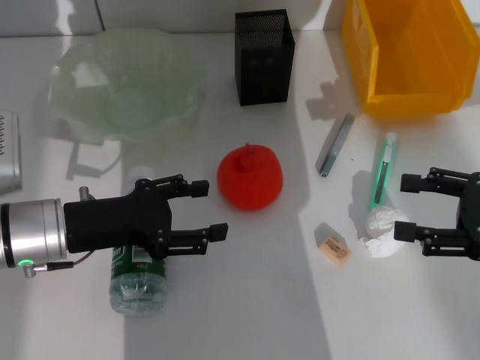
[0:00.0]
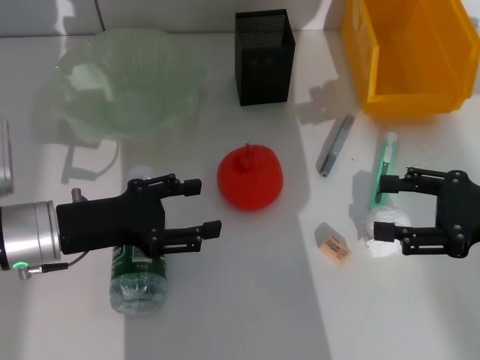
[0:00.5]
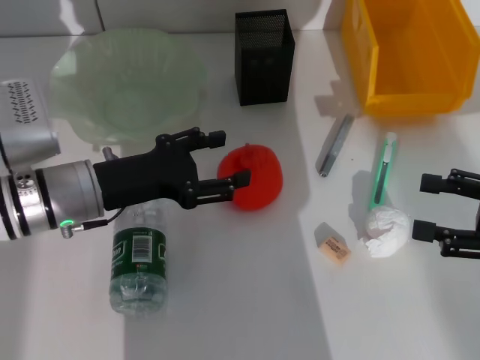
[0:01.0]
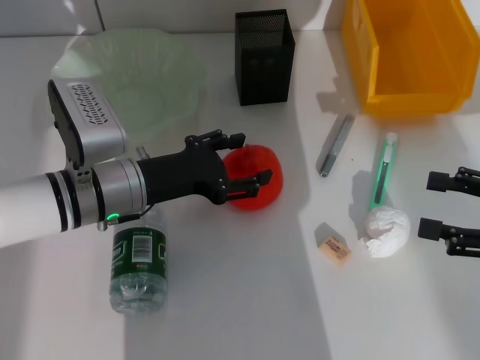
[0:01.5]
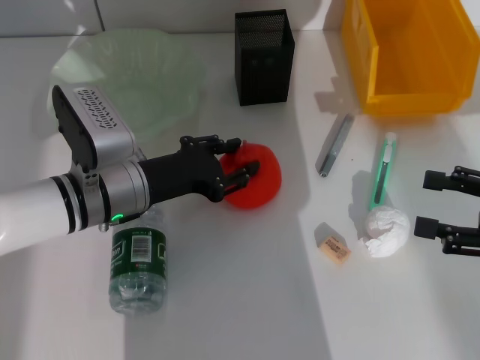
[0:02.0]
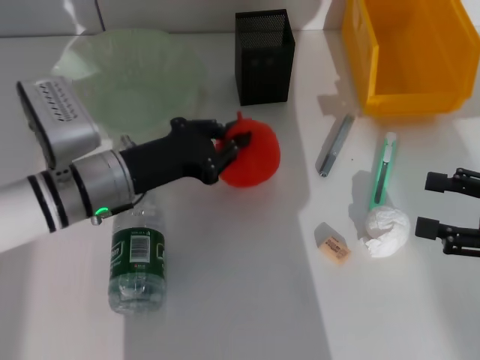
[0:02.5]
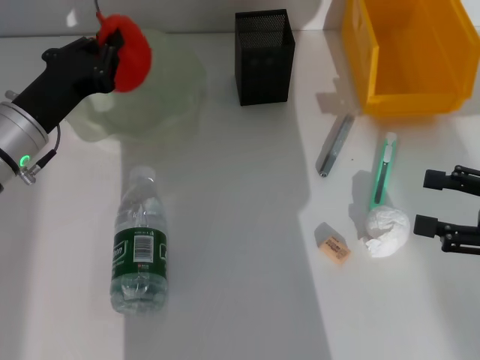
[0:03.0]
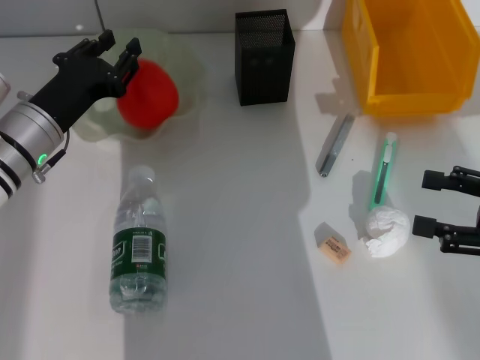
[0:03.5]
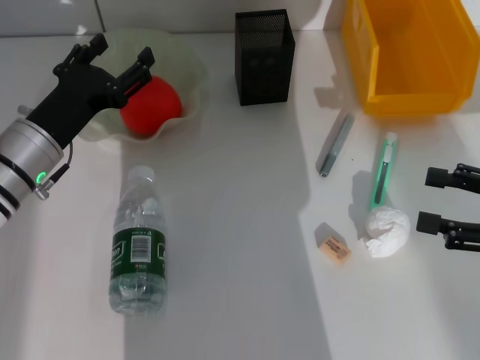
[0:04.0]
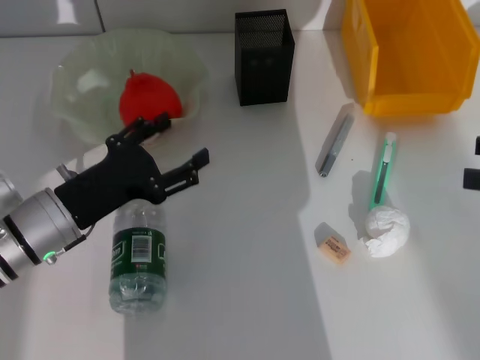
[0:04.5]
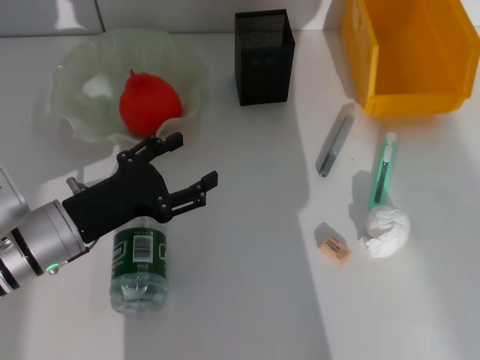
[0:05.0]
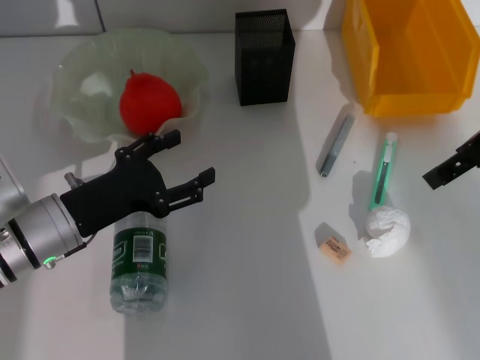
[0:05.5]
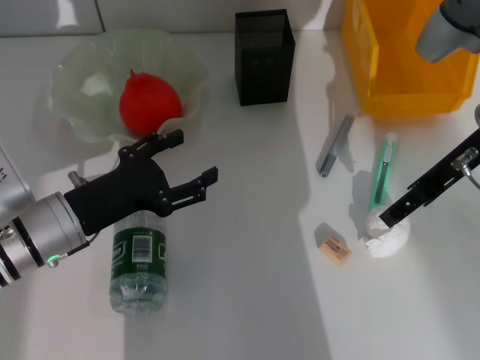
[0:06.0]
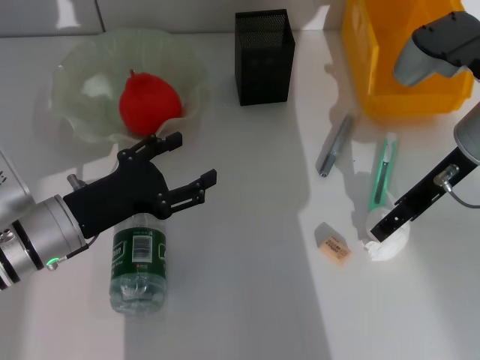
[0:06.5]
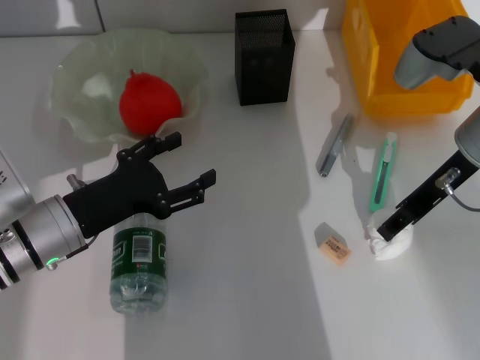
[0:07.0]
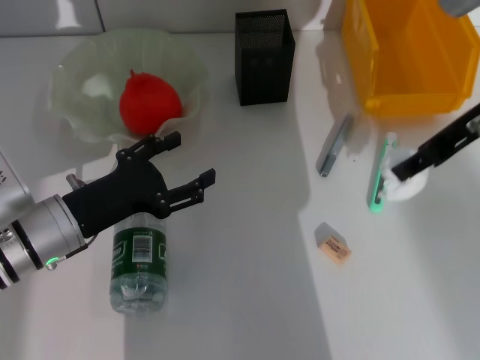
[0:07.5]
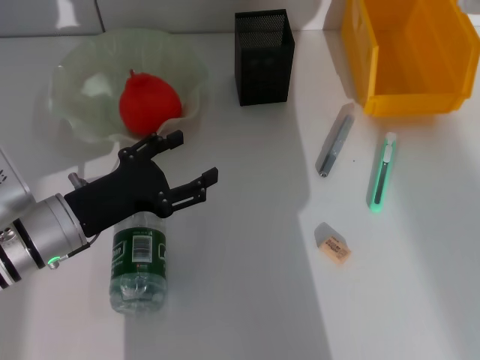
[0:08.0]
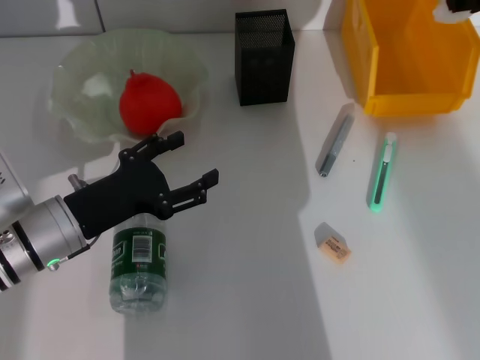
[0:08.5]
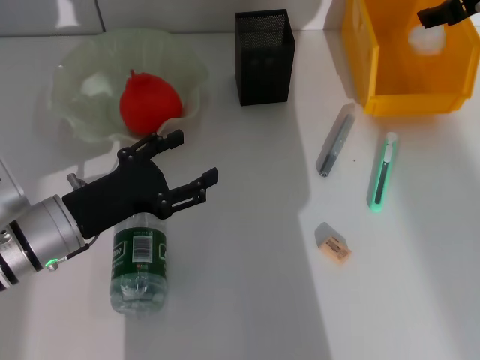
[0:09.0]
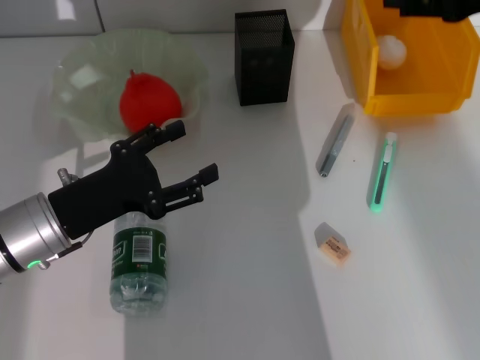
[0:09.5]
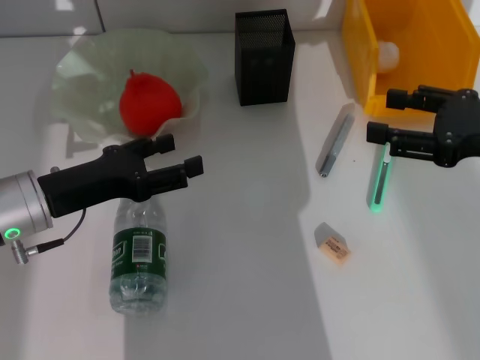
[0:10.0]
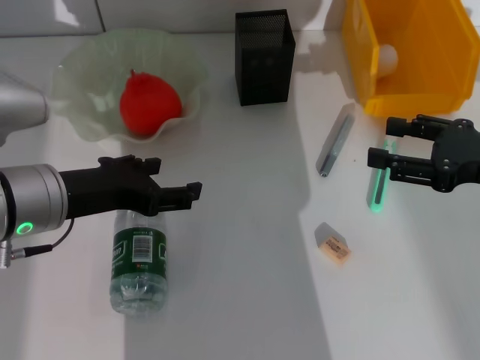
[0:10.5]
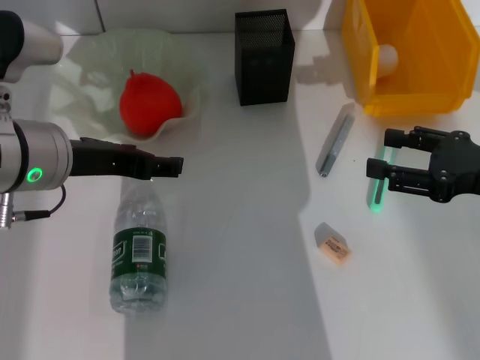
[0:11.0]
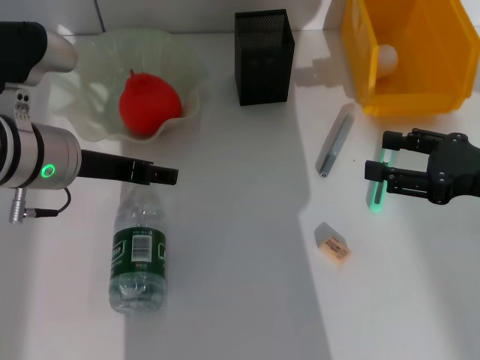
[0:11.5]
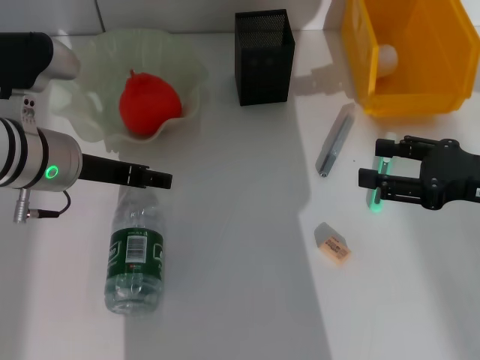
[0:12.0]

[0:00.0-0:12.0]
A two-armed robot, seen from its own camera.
Step, 0:00.0 to 0:02.0: Grab the orange with the left hand.
Step, 0:02.5 to 0:03.5: Place the orange into the fruit bowl with the left hand.
Step, 0:04.0 to 0:06.5: Grab the paper ball with the right hand.
Step, 0:07.0 to 0:09.0: Place the paper ball into the trash can with the right hand.
0:00.0 to 0:02.0: The left gripper is displaced to the right and forward by about 10 cm.
0:02.0 to 0:04.0: The left gripper is displaced to the left by about 5 cm, and closes, then opens again.
0:04.0 to 0:06.0: The right gripper moves forward, to the left and upward, some 20 cm. Meanwhile the left gripper is displaced backward by approximately 5 cm, and opens its fingers.
0:06.0 to 0:08.0: The right gripper goes approximately 15 cm upward and to the right, and closes.
0:08.0 to 0:10.0: The right gripper is displaced downward and backward by roughly 20 cm.
0:10.0 to 0:12.0: The left gripper shifts approximately 5 cm upward.

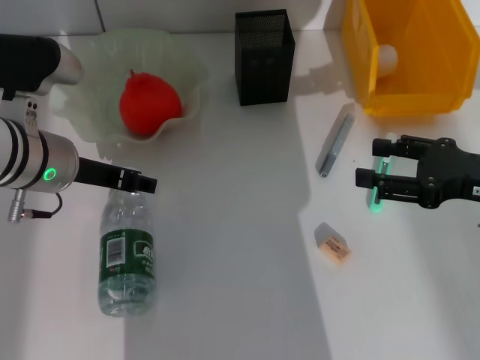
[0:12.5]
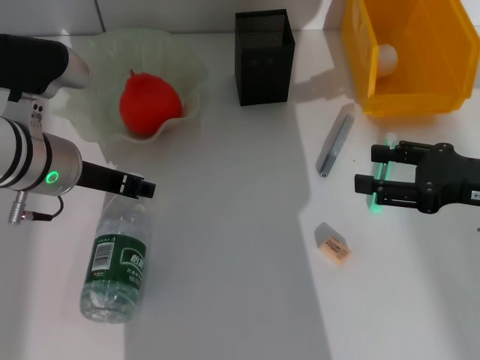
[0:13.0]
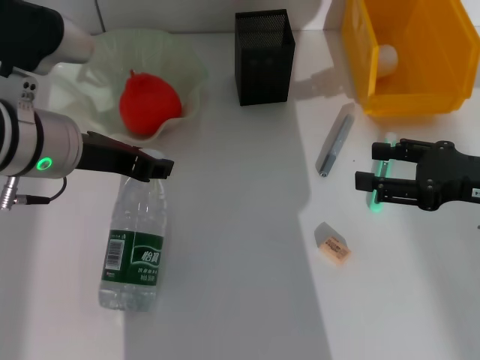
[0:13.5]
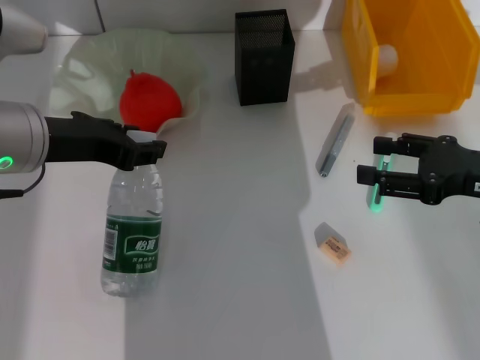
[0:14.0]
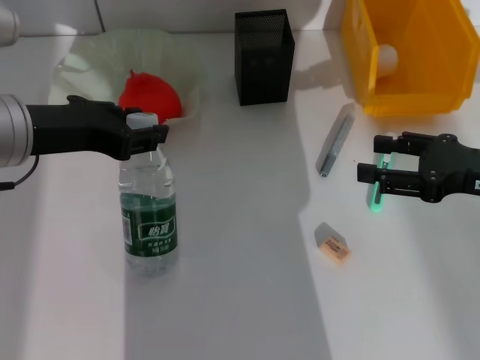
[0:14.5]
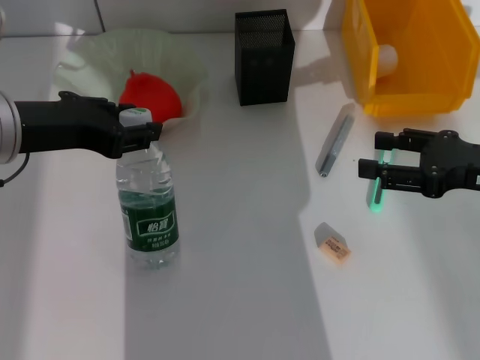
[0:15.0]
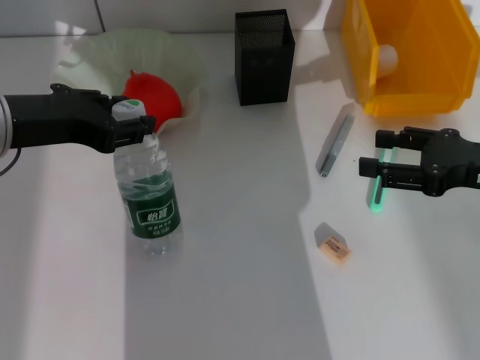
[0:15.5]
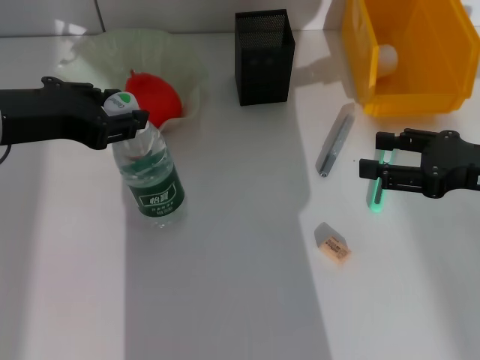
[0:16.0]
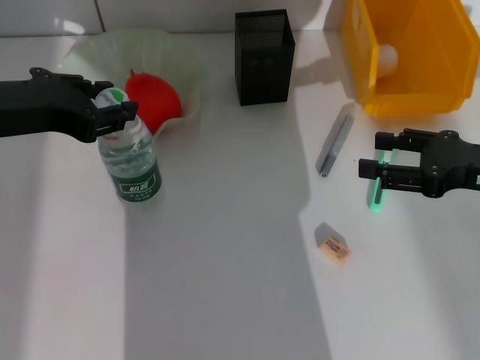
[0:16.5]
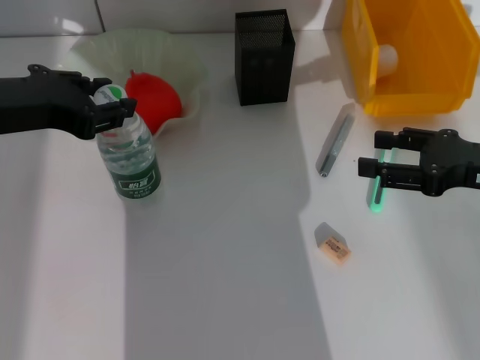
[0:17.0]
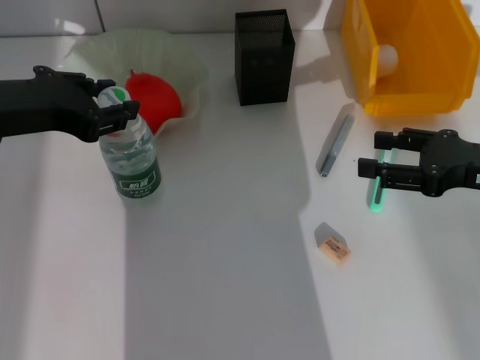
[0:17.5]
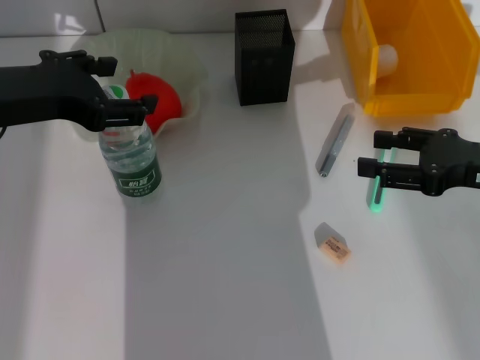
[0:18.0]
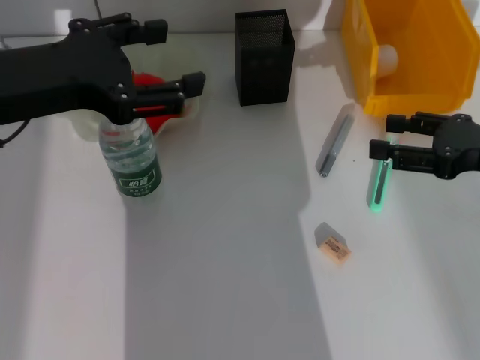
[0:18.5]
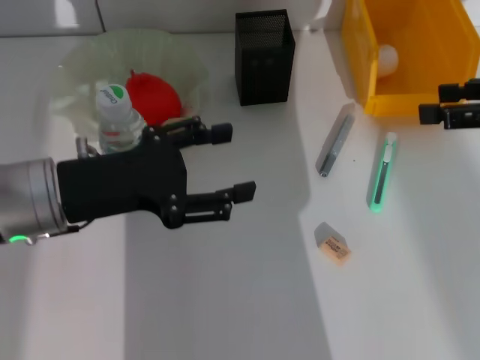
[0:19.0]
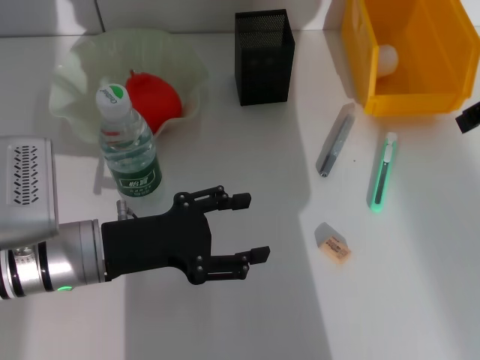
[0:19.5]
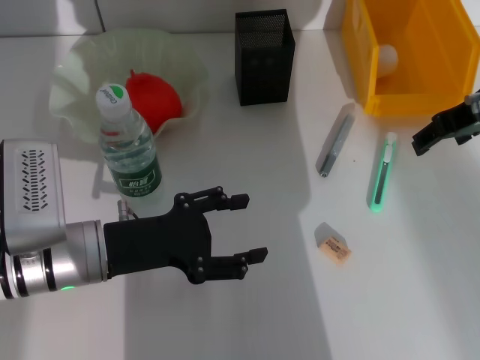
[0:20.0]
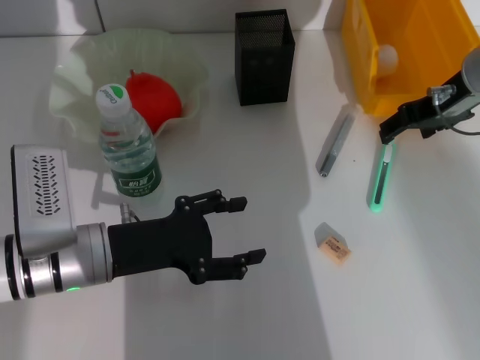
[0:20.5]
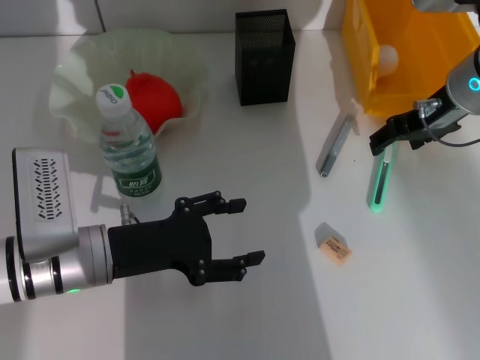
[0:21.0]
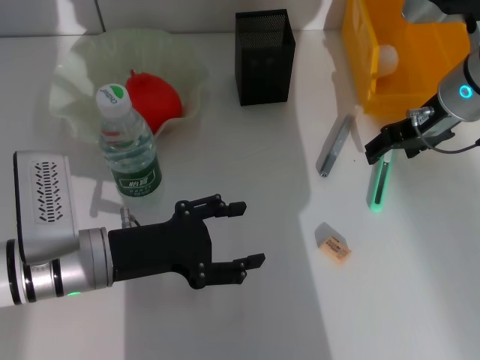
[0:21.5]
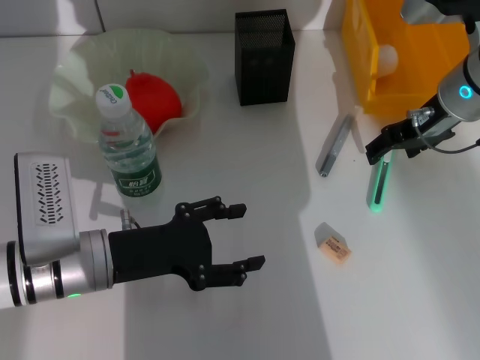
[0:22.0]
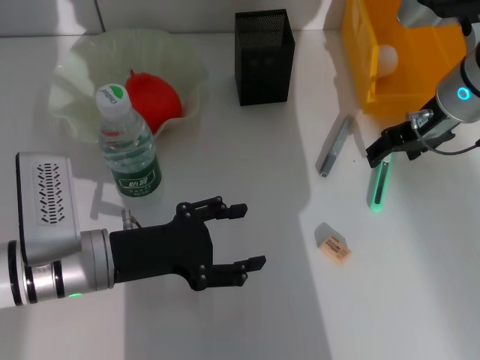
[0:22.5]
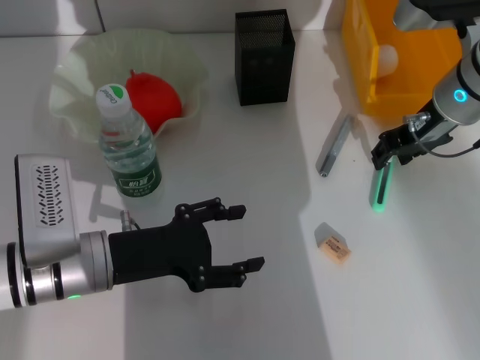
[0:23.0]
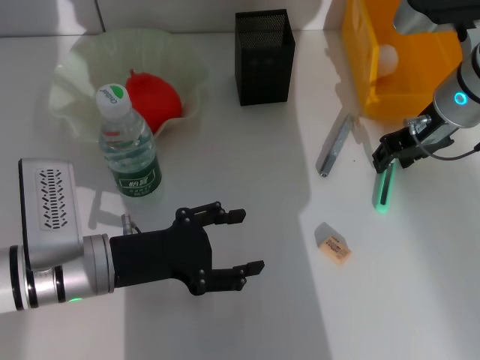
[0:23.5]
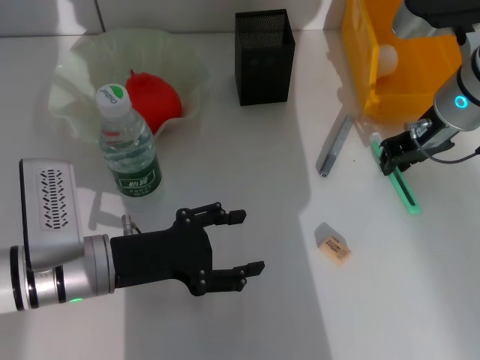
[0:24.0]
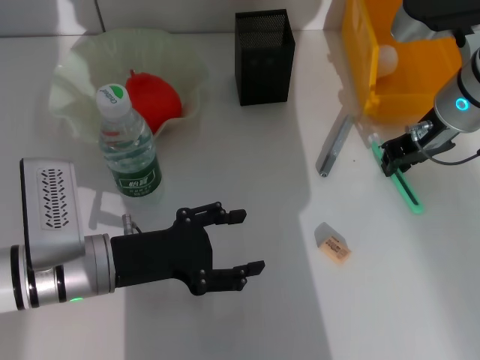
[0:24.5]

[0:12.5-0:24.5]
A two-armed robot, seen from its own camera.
Step, 0:13.5 to 0:18.0: Place the water bottle on the table with the left hand.
Step, 0:18.5 to 0:24.0: Grab the blue utility knife with the right hand.
0:12.5 to 0:14.5: The left gripper is displaced upward by some 5 cm, and closes its fingers.
0:14.5 to 0:16.5: The grippers move only a little.
0:16.5 to 0:18.5: The left gripper opens up.
0:18.5 to 0:20.5: The left gripper goes about 20 cm downward. The right gripper goes about 15 cm forward and to the left.
0:20.5 to 0:22.5: The grippers stay close to where they were, moving slightly.
0:22.5 to 0:24.5: The right gripper closes.

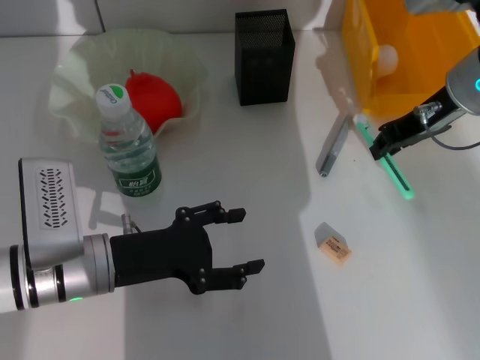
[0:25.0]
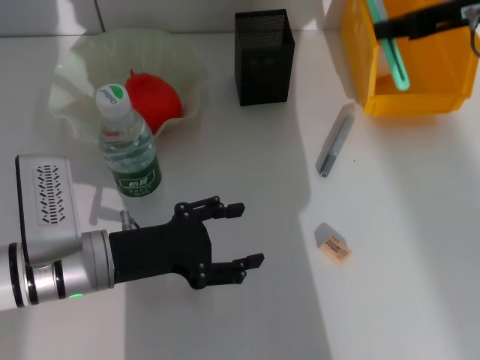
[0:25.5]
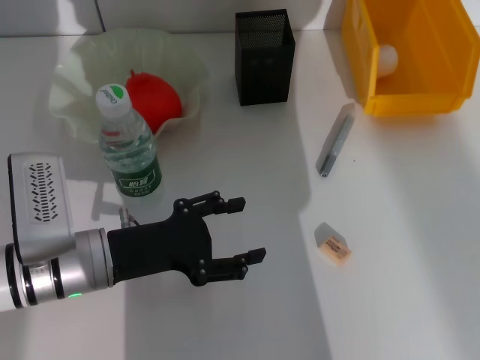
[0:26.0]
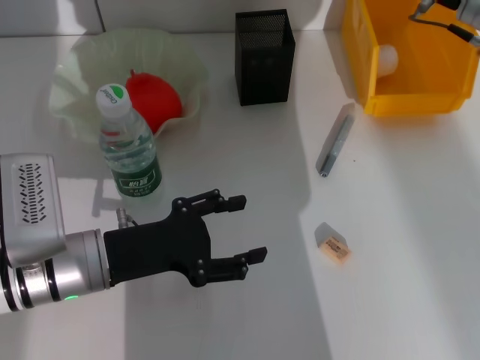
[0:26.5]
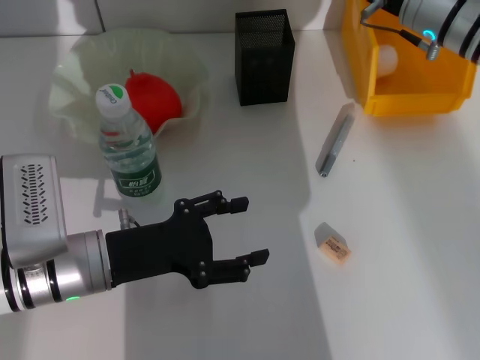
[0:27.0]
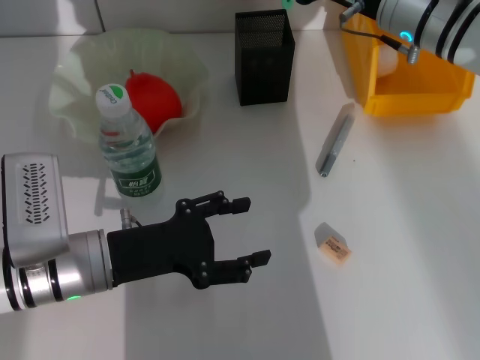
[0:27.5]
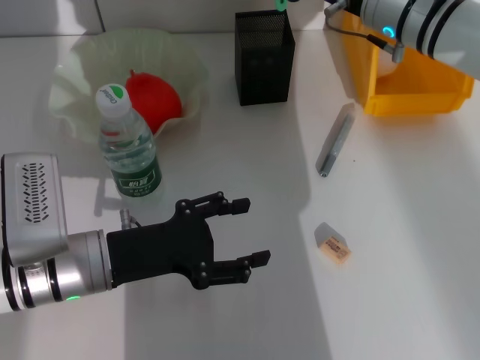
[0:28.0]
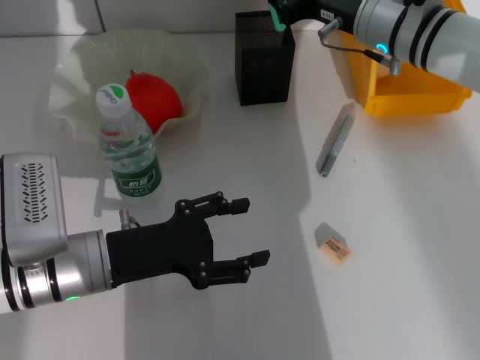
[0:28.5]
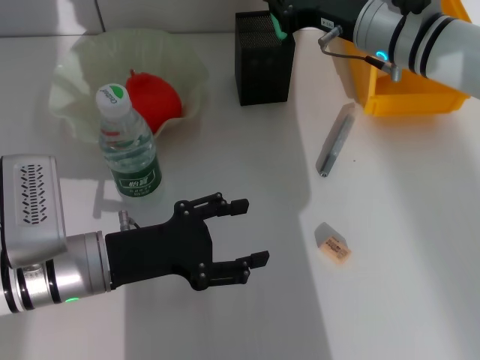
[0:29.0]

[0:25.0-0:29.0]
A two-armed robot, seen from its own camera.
0:25.0 to 0:27.0: The right gripper goes upward and returns, about 10 cm each way.
0:27.0 to 0:29.0: There are only small adjustments of the grippers.
